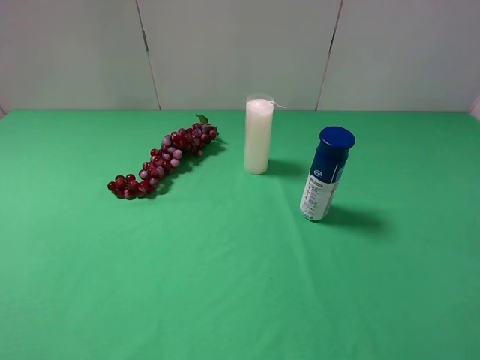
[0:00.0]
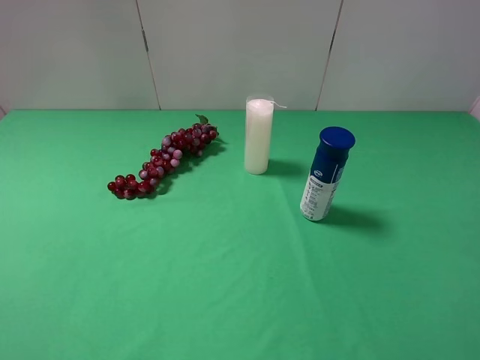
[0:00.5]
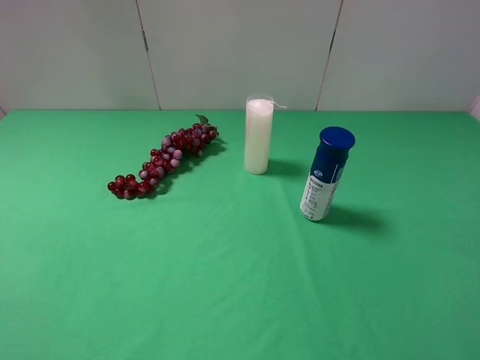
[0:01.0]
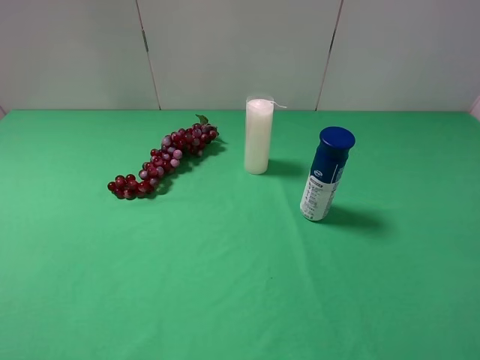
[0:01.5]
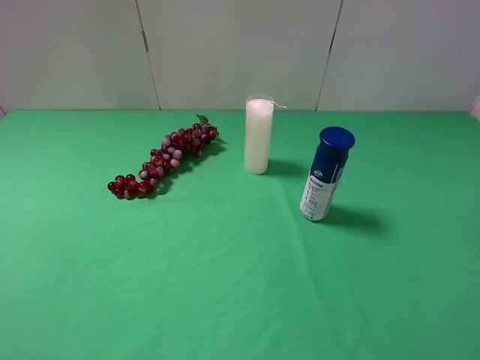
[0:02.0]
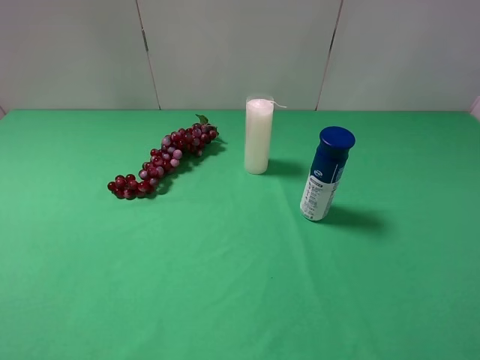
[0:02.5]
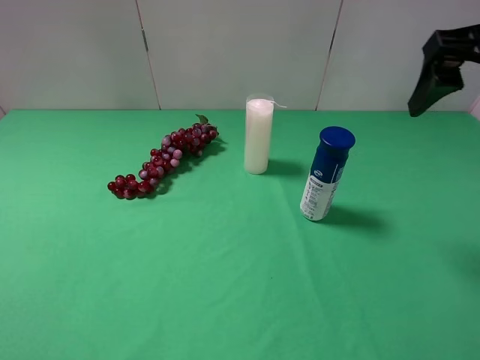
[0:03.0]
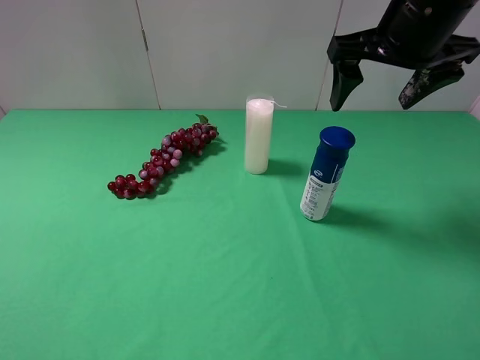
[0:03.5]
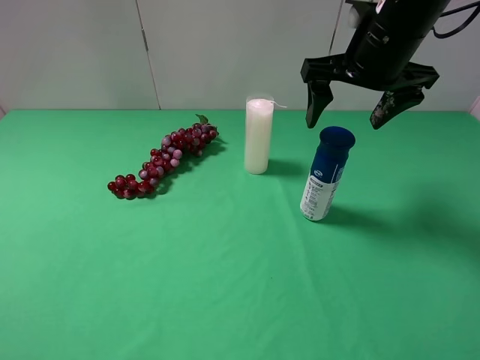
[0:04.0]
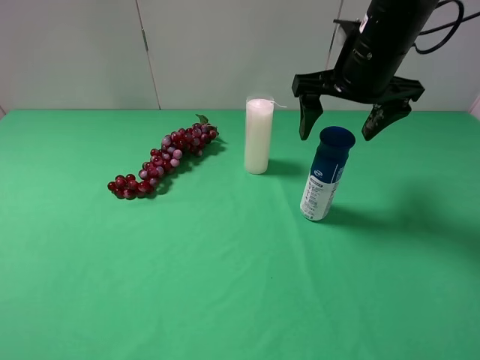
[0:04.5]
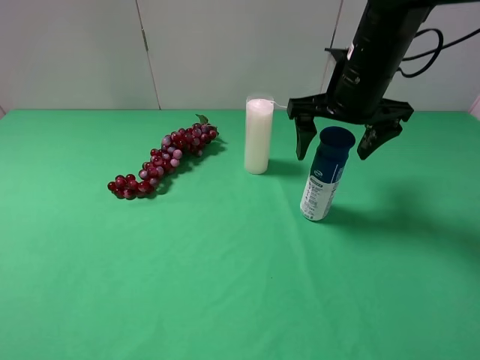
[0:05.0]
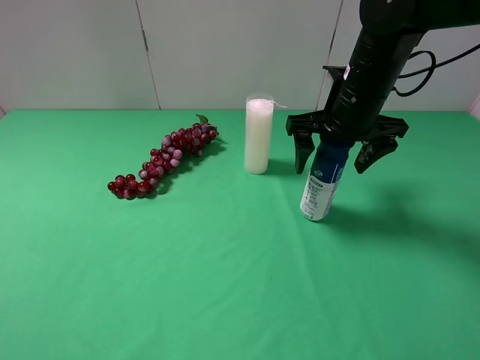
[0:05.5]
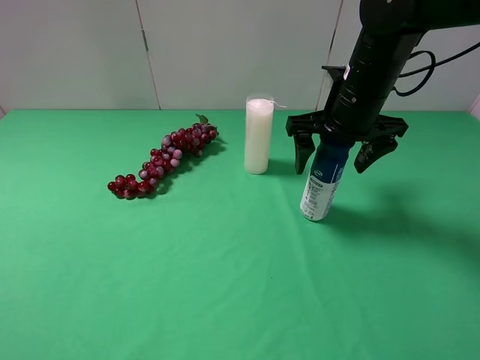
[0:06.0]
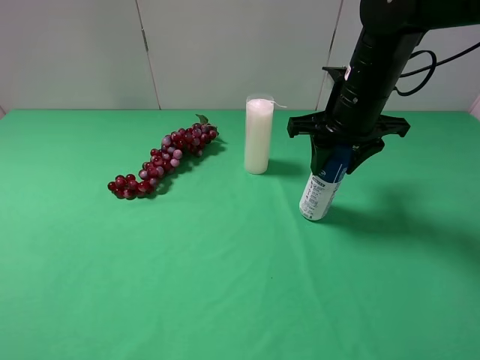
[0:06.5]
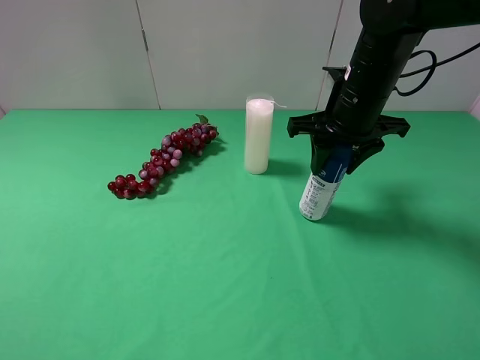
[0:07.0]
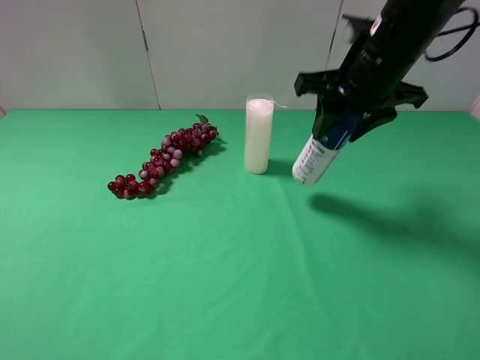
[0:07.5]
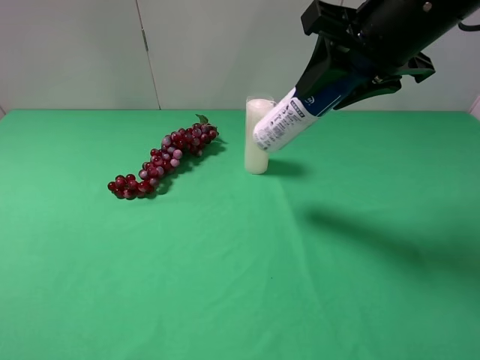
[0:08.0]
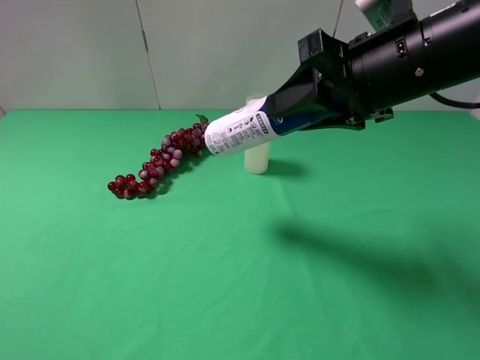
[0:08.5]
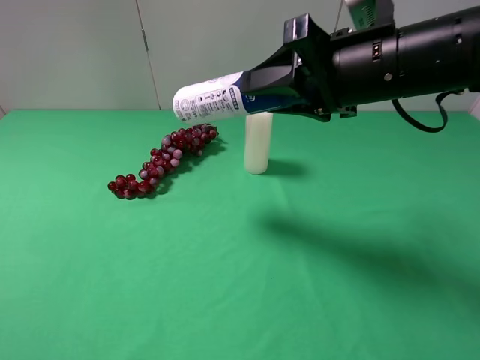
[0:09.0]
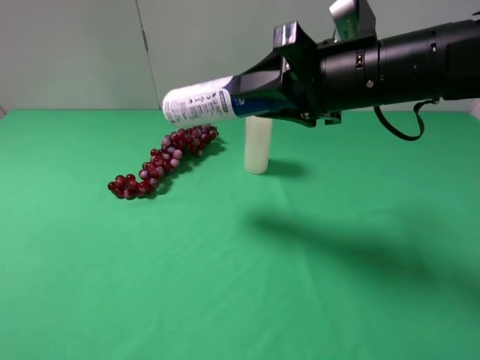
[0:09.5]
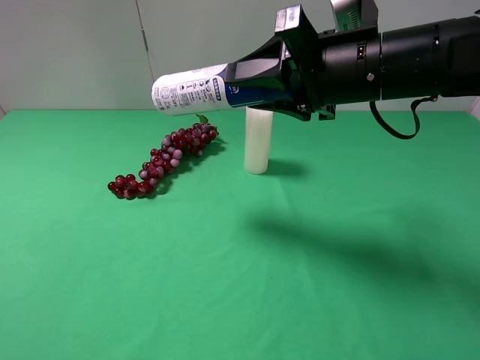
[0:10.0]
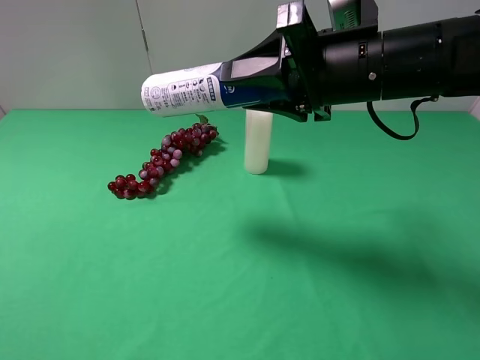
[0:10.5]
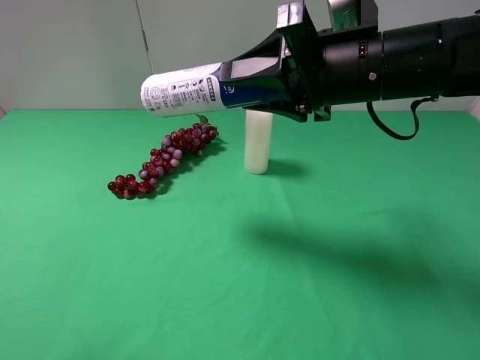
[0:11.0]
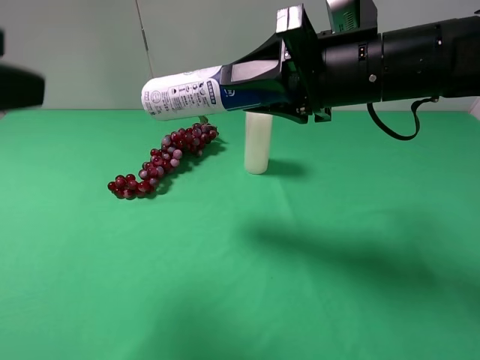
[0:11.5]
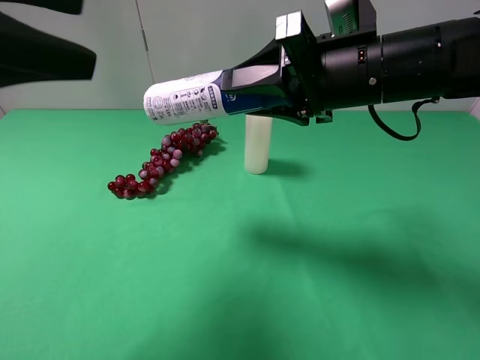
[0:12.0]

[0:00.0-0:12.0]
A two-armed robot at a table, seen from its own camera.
Task of the whole recording: use the right gripper to pick up the item and transfer it from the right gripper to the left gripper.
Step, 0:00.0 to 0:06.5: Use the right gripper to grab the yogurt on the right side of the table.
0:02.0 to 0:04.0: The right gripper heads forward and to the left, covering some 35 cm.
0:04.0 to 0:06.0: The right gripper heads downward, covering roughly 5 cm.
0:06.0 to 0:08.0: The right gripper moves upward and backward, approximately 15 cm, and closes its fingers.
0:08.0 to 0:10.0: The right gripper goes approximately 5 cm downward.
0:10.0 to 0:12.0: The left gripper goes roughly 20 cm forward and upward.

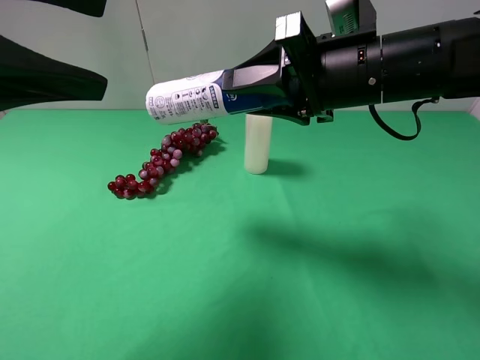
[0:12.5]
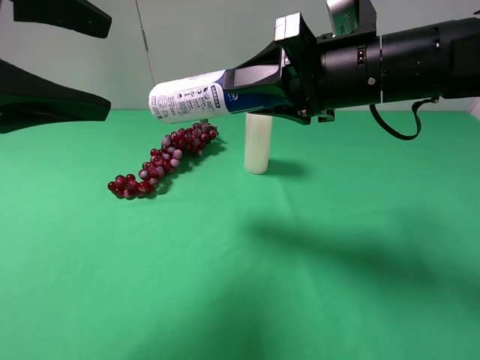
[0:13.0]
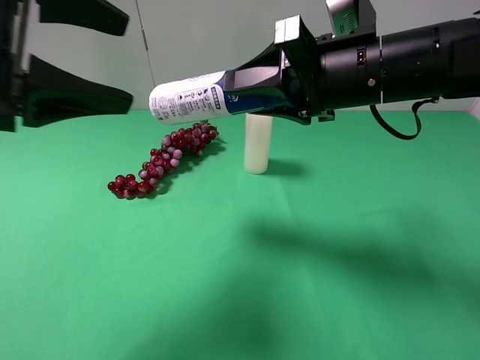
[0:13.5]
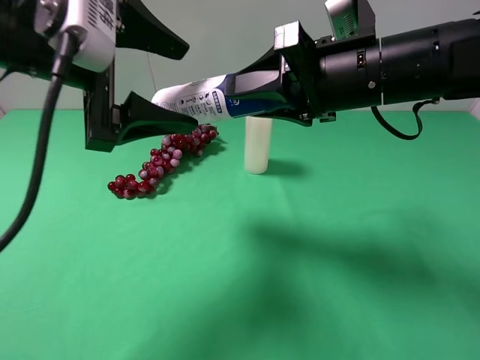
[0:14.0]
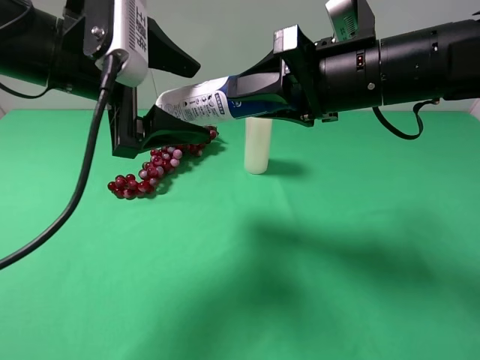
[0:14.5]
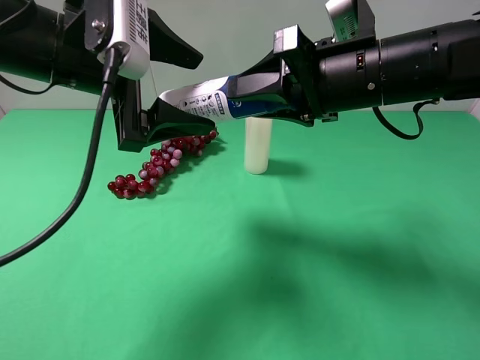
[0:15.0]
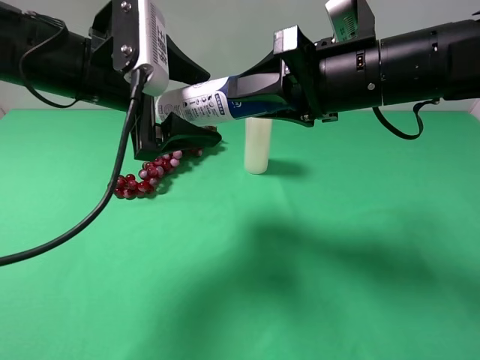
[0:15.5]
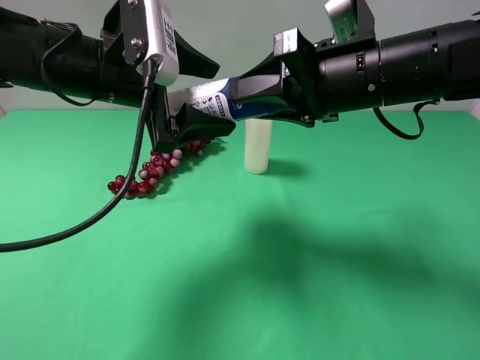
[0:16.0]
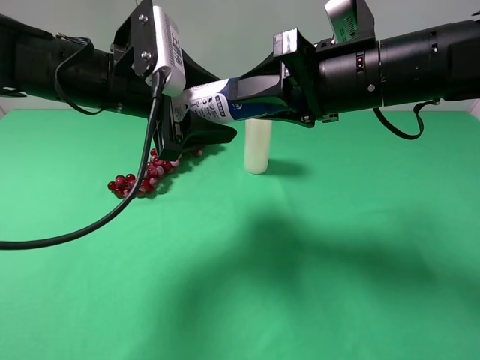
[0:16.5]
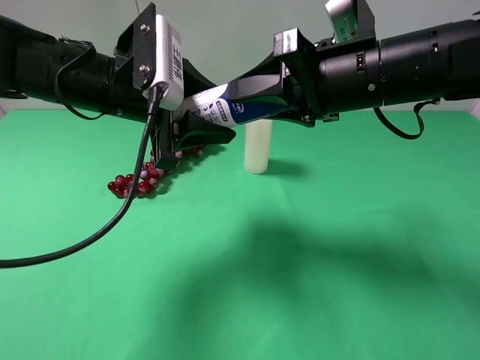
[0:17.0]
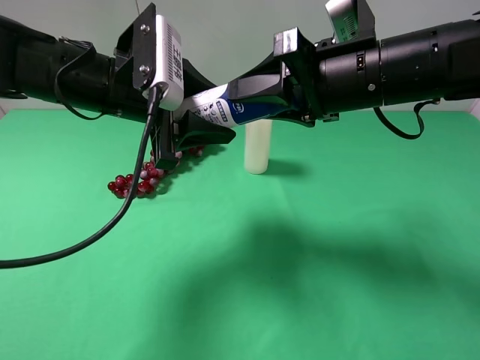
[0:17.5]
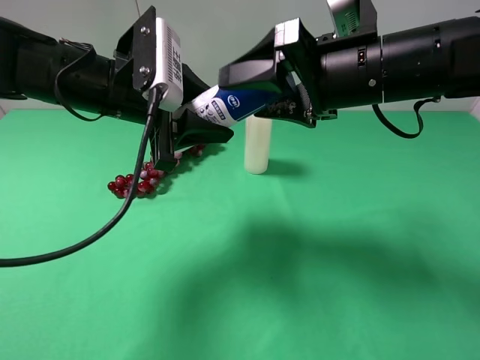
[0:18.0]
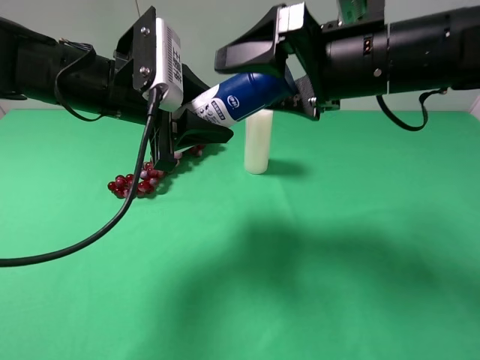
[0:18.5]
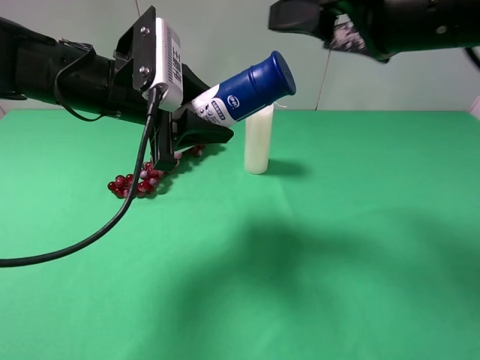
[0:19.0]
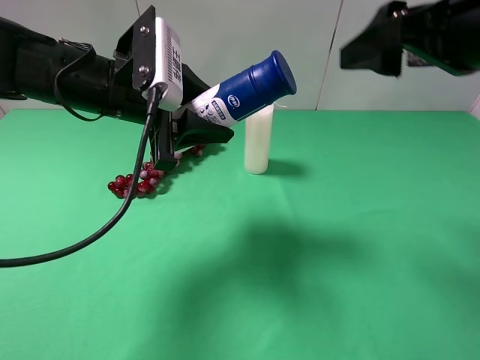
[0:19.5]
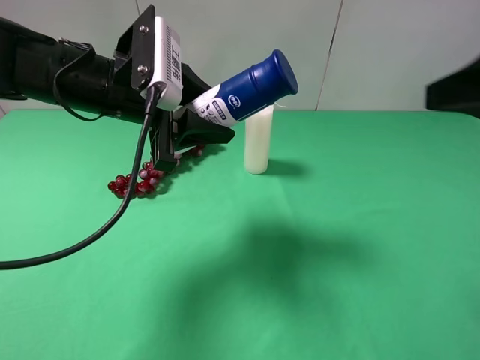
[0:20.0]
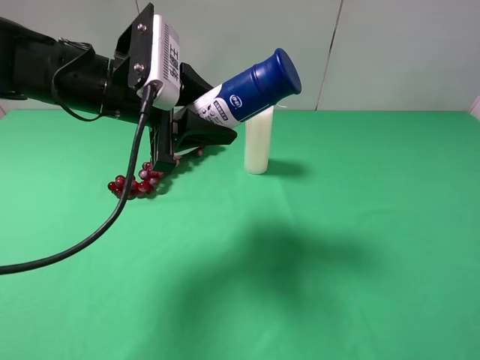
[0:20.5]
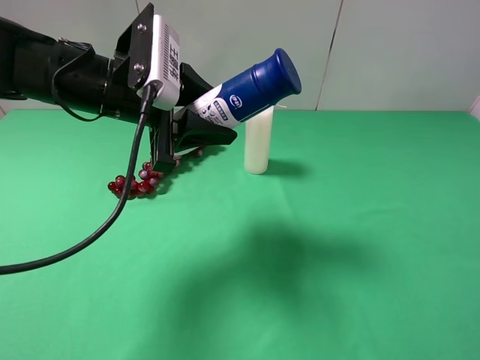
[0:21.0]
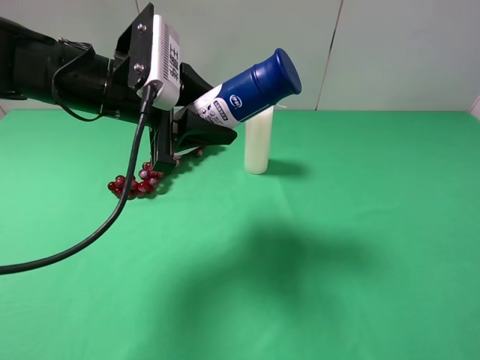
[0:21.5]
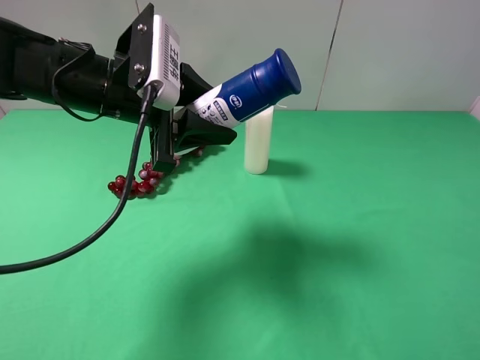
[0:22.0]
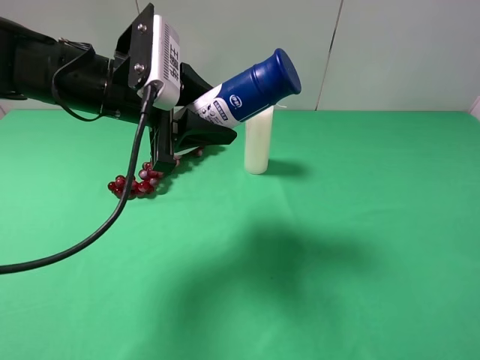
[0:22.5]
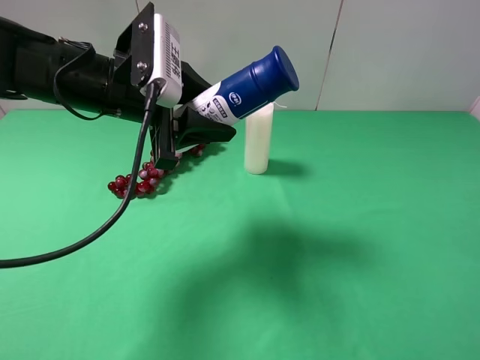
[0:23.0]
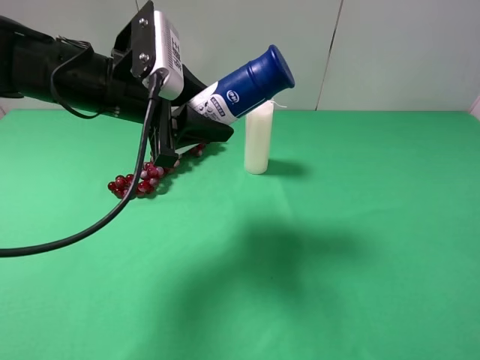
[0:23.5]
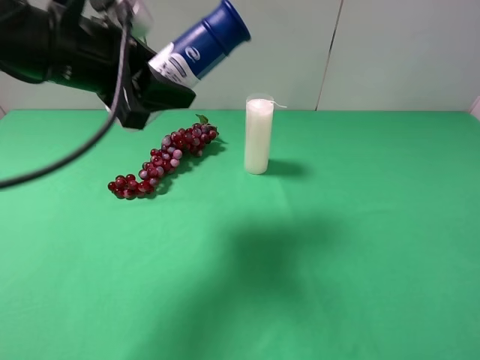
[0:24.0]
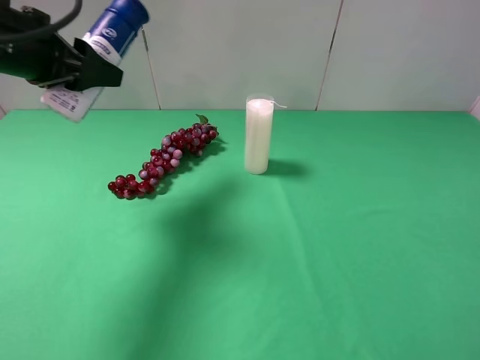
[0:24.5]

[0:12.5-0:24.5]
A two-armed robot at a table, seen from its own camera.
Task of the whole recording: use the right gripper to pick up the item and transfer it from the right gripper to the left gripper.
Step, 0:12.5 to 0:18.0: Pass the yogurt to the left gripper.
0:12.5 to 0:14.5: The left gripper moves downward, to the right and forward, some 10 cm.
0:14.5 to 0:16.5: The left gripper ends up about 5 cm from where it was, and closes its fingers.
0:16.5 to 0:18.5: The left gripper closes its fingers, while the right gripper opens.
0:18.5 to 0:20.5: The right gripper shifts some 30 cm backward and to the right.
0:22.5 to 0:24.5: The left gripper is displaced to the left and upward by roughly 15 cm.

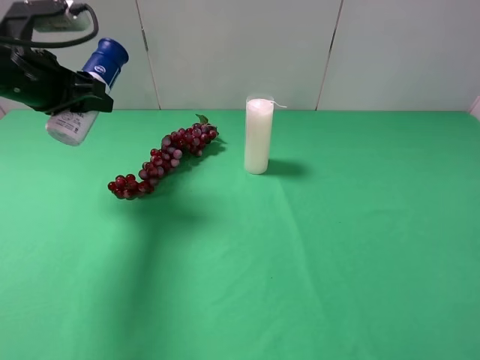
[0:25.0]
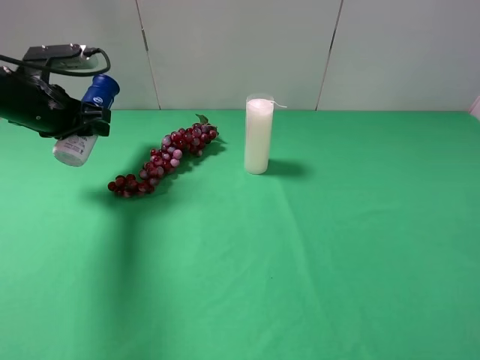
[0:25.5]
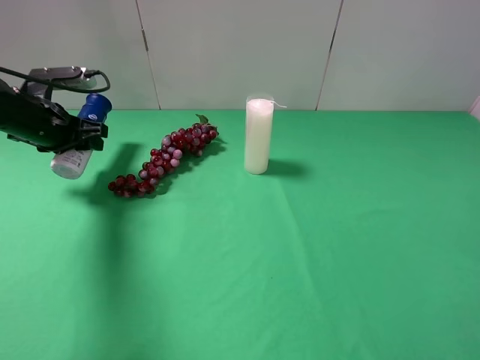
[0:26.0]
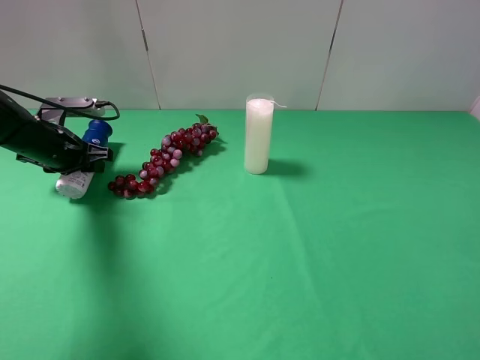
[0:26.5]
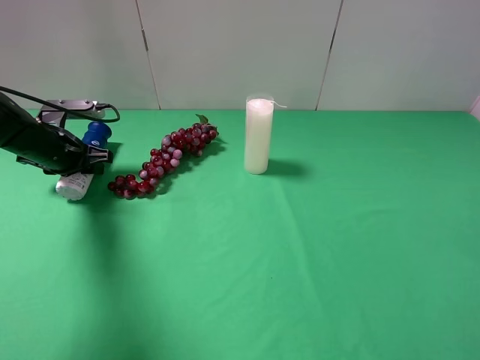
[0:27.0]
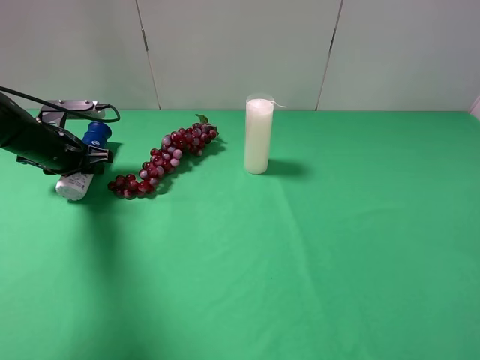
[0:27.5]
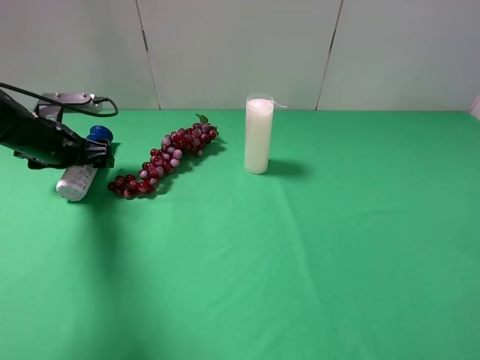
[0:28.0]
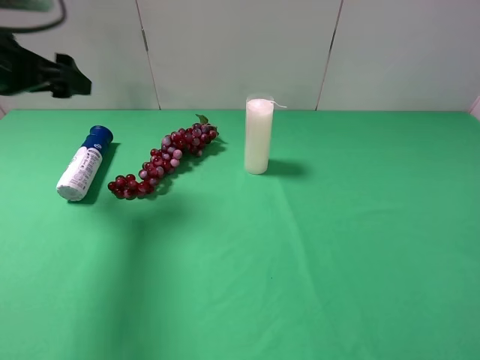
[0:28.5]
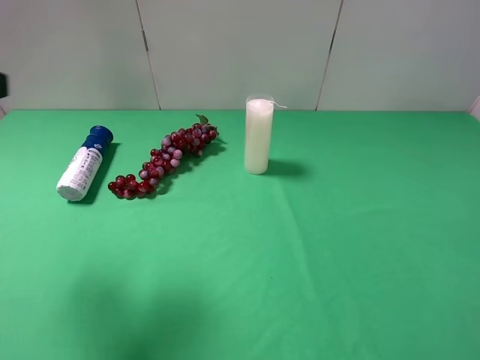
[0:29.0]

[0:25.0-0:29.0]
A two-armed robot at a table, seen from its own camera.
Task of the whole recording: use the right gripper to pick up the item and transfer it from the right gripper to the left gripper.
Step, 0:25.0 to 0:28.0: The left gripper places yogurt on the left side of the table.
0:25.0 to 0:27.0: The left gripper travels downward by some 15 cm.
0:27.0 to 0:29.0: The left gripper shifts about 30 cm upward and backward, and opens up.
